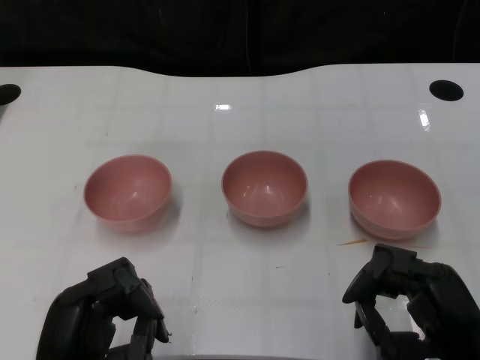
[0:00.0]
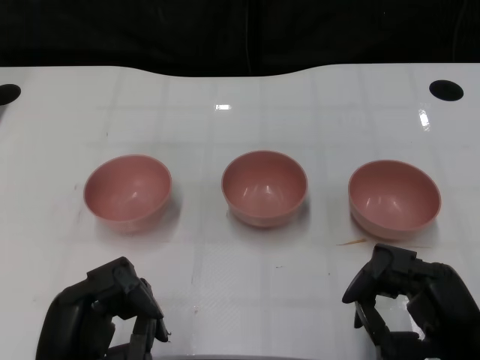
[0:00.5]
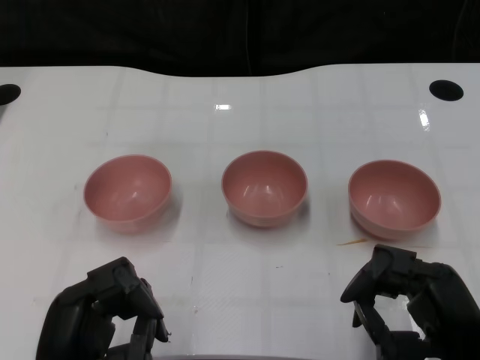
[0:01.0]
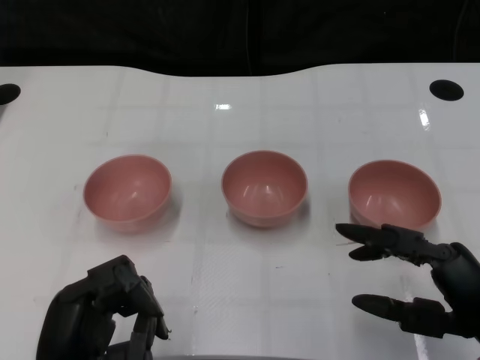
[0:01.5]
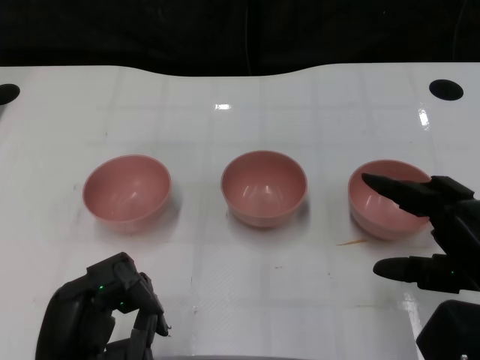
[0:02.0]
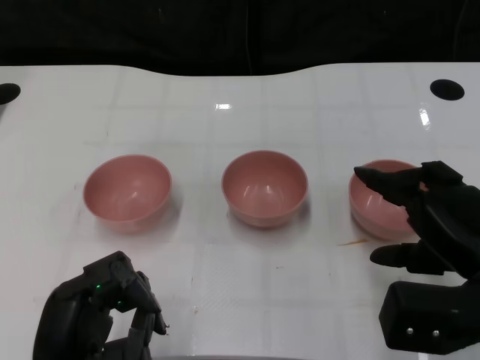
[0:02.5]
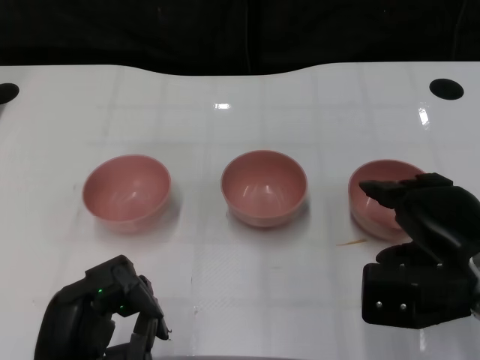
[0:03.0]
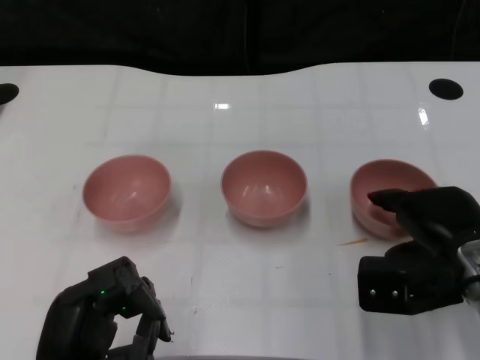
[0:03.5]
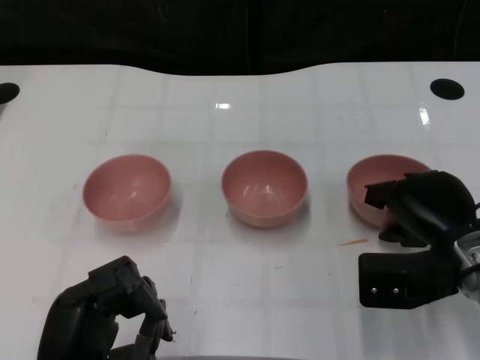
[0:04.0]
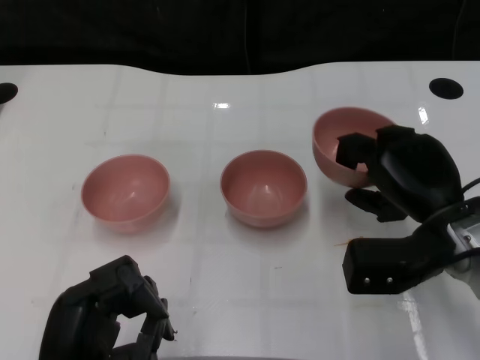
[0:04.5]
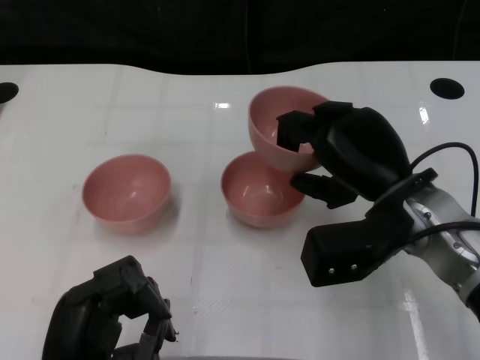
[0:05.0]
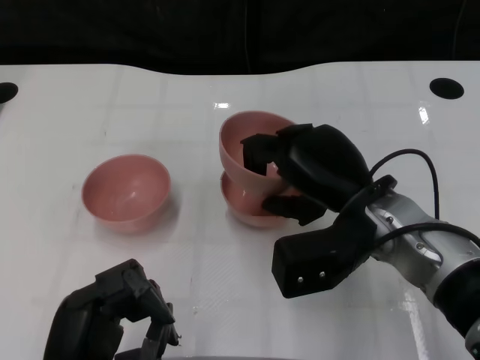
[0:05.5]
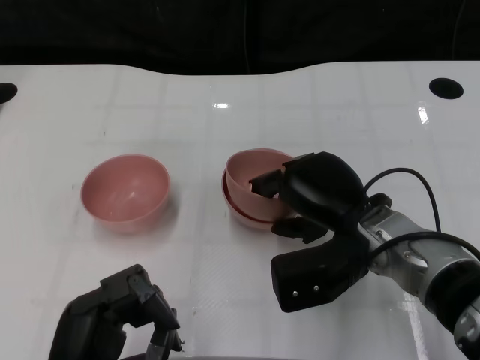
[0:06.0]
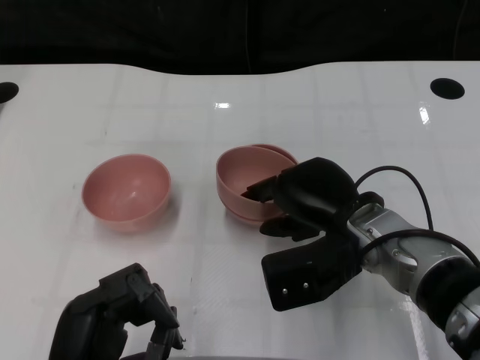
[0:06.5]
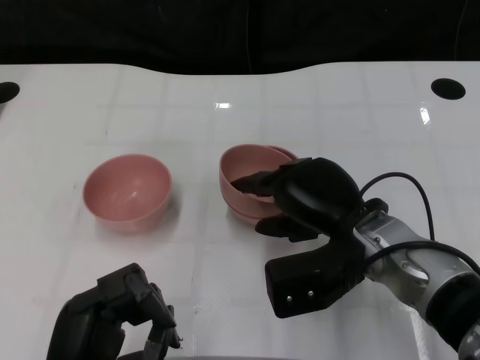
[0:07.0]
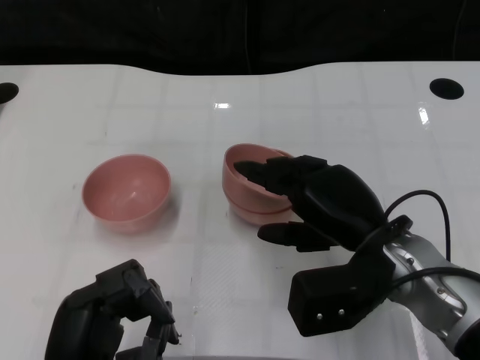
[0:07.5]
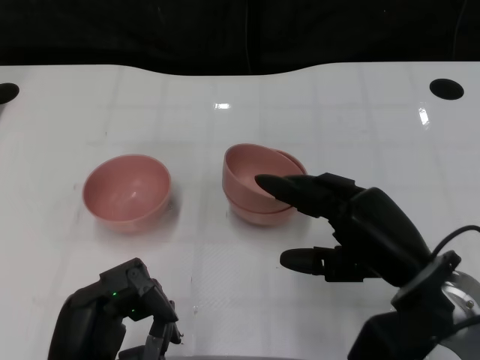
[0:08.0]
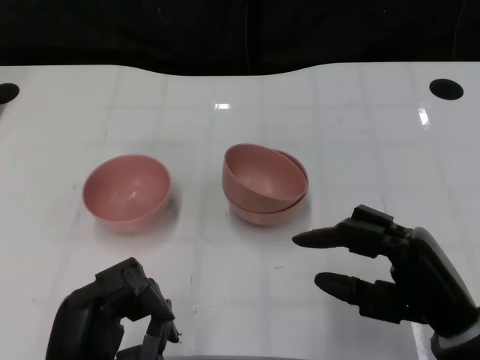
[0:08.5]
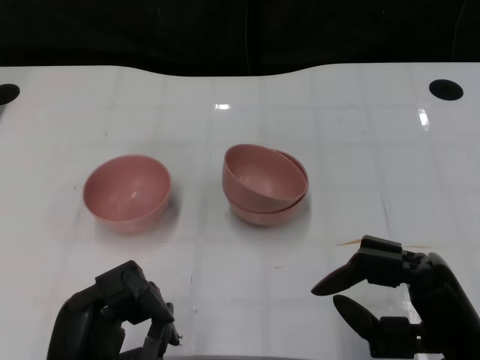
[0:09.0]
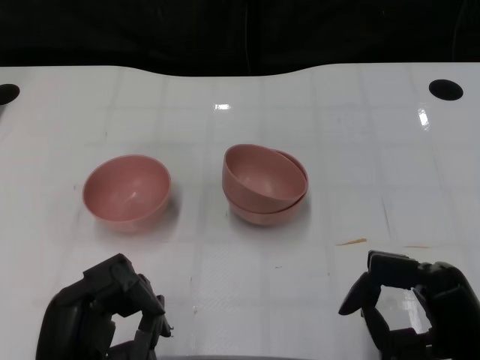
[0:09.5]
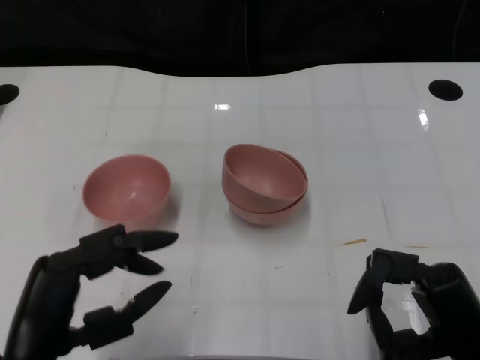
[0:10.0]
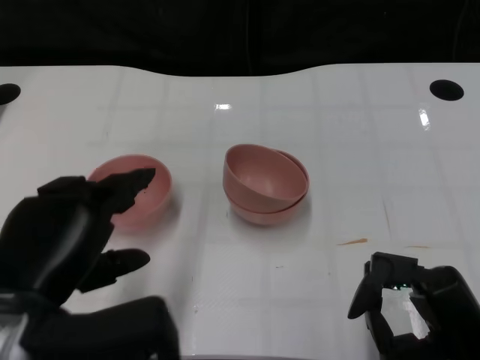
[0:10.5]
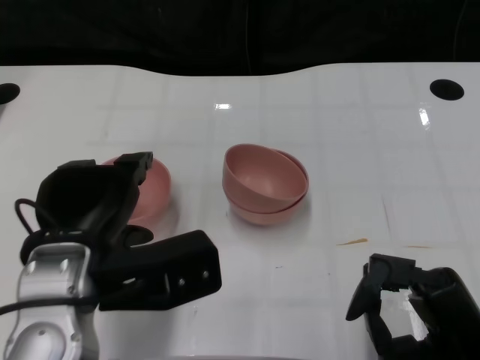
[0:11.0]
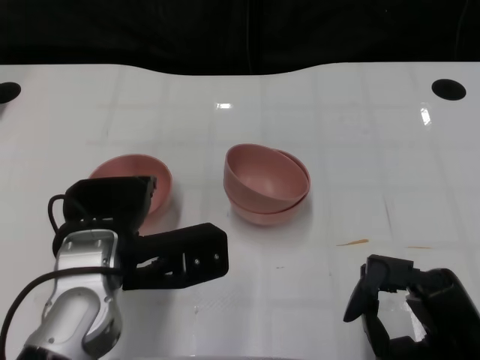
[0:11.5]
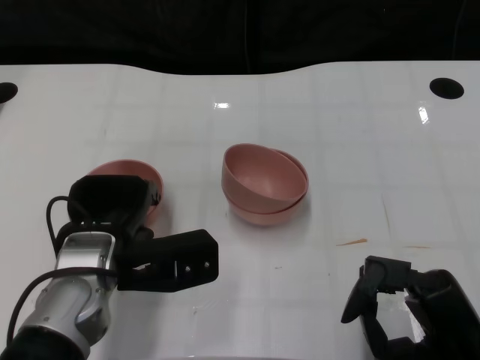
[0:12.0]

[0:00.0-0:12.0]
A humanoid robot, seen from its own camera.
Task of the whole recording: Pick up the bowl on one side of the table and place it on top of the middle bowl, then pick up the bowl on the other side of the table and place it on top of the middle bowls.
Step, 0:01.5 to 0:04.0: Grasp the bowl on the right with the right gripper.
Step, 0:04.5 to 0:07.5: Place the bowl on the right onto the bowl in the middle with right gripper.
0:02.0 to 0:04.0: The right hand is displaced forward and downward by some 10 cm.
0:04.0 to 0:06.0: The right hand is displaced to the left by roughly 10 cm.
0:06.0 to 0:08.0: The right hand is displaced backward and to the right by roughly 10 cm.
0:08.0 to 0:10.0: The right hand heads backward, covering roughly 5 cm.
0:10.0 to 0:12.0: The left hand travels forward by some 15 cm.

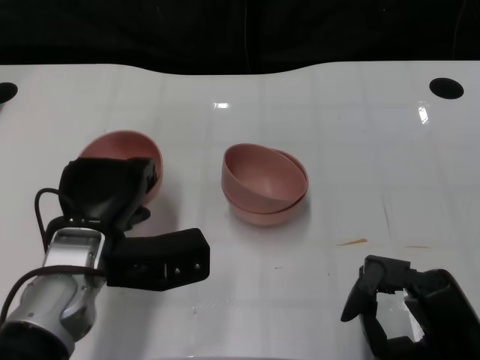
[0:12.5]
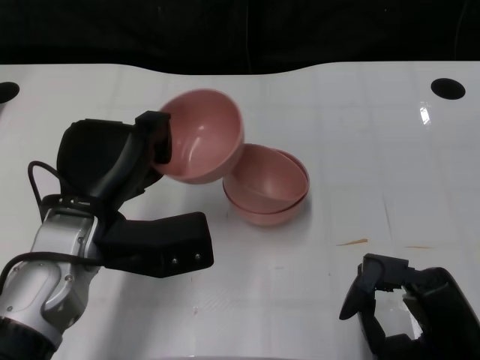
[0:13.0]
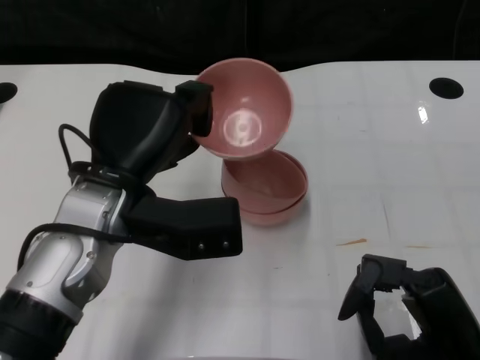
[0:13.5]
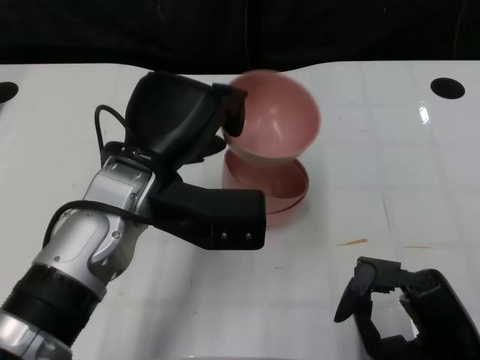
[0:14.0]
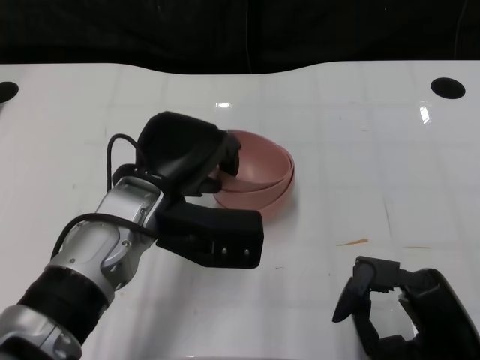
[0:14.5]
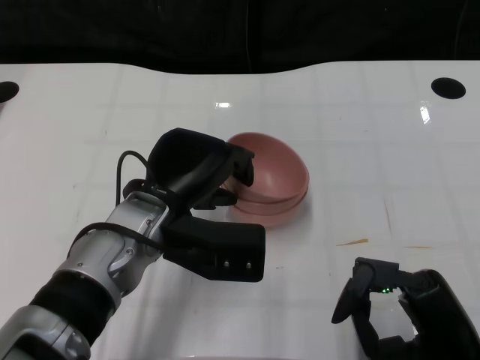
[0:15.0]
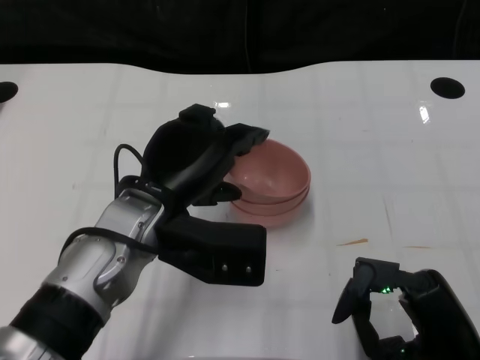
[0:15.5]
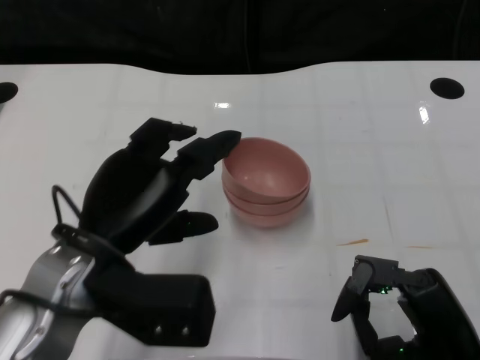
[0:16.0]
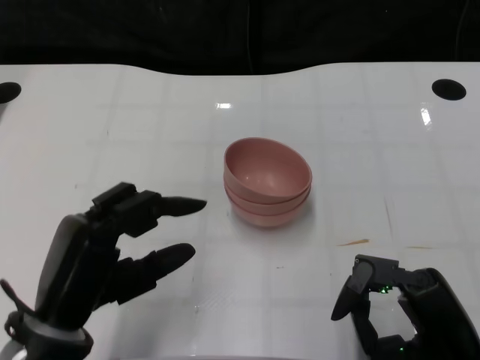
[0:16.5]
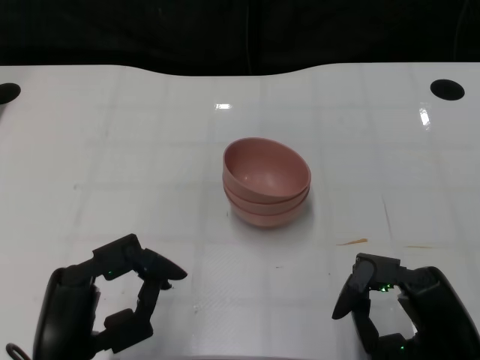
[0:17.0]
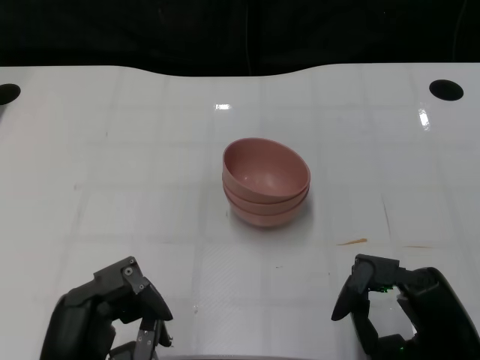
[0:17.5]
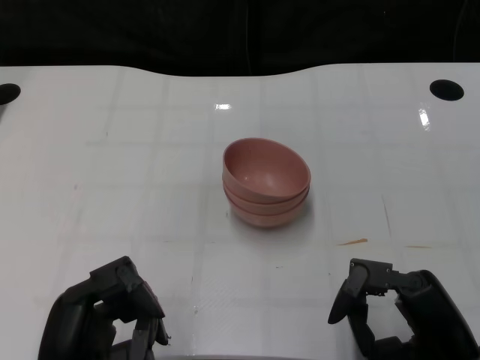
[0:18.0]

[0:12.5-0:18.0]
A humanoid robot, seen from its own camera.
Task of the whole recording: Pick up the bowl on one side of the table and place it on top of the middle bowl, then pick up the bowl on the other side of the table and place it on top of the middle bowls.
Step, 0:12.5 to 0:15.5: Place the bowl on the left onto the bowl in the middle with left gripper.
0:12.5 to 0:14.5: The left hand heads to the right, covering roughly 5 cm.
0:14.5 to 0:16.0: The left hand moves backward and to the left, approximately 10 cm.
0:16.0 to 0:18.0: The left hand moves backward and downward, roughly 15 cm.

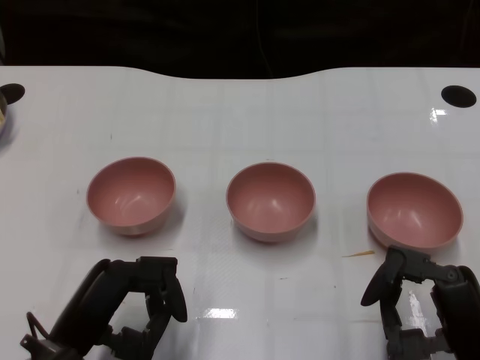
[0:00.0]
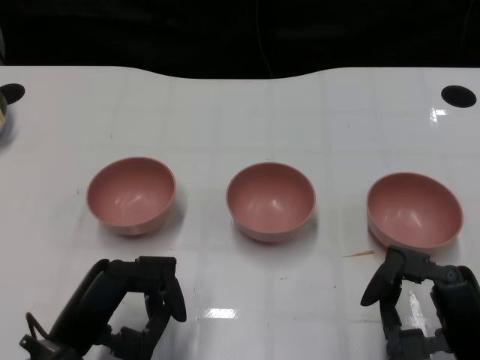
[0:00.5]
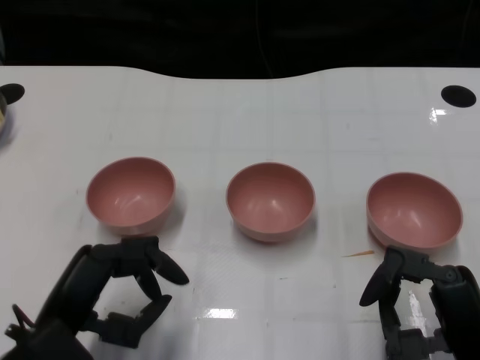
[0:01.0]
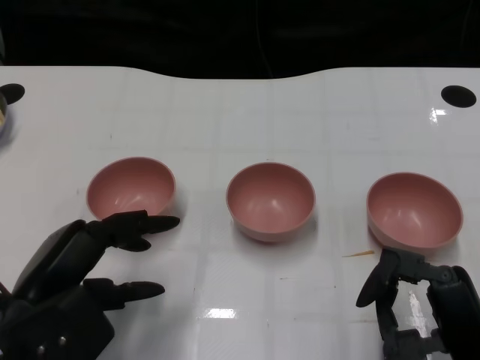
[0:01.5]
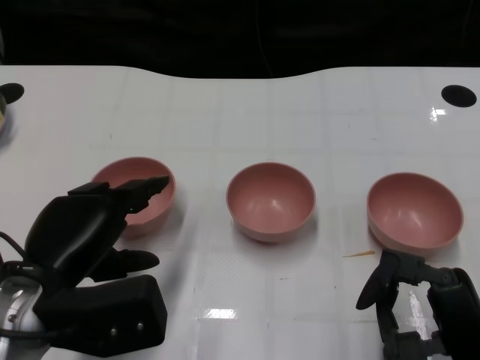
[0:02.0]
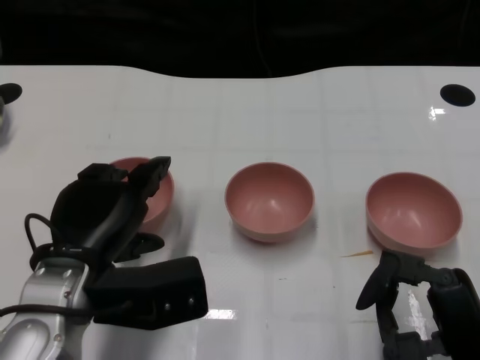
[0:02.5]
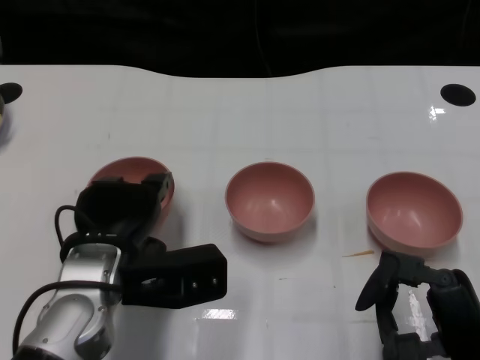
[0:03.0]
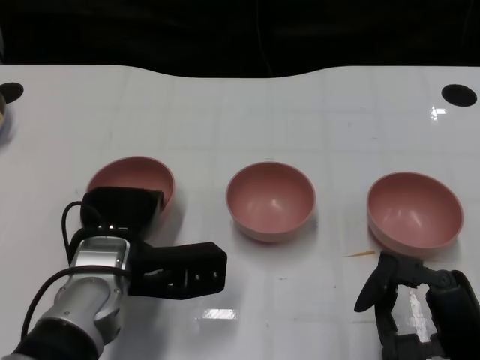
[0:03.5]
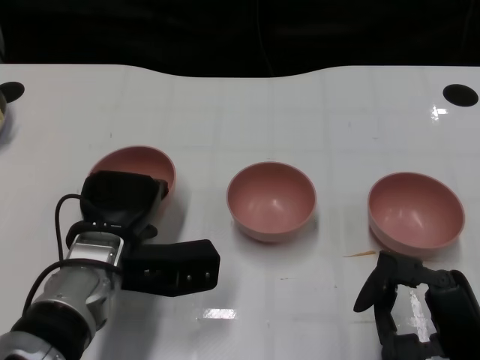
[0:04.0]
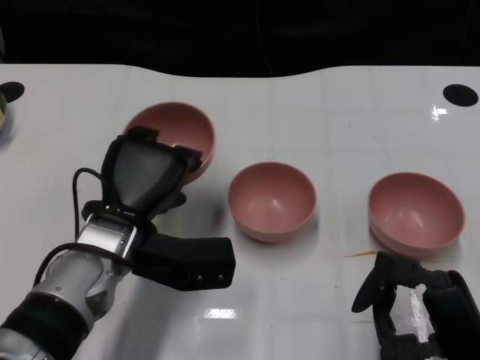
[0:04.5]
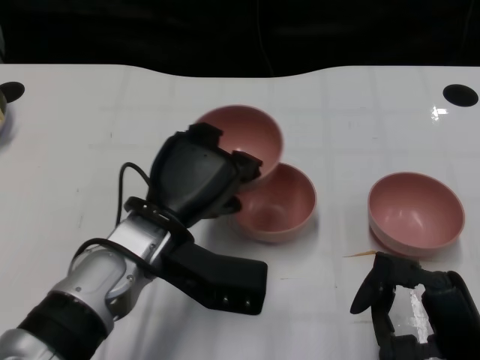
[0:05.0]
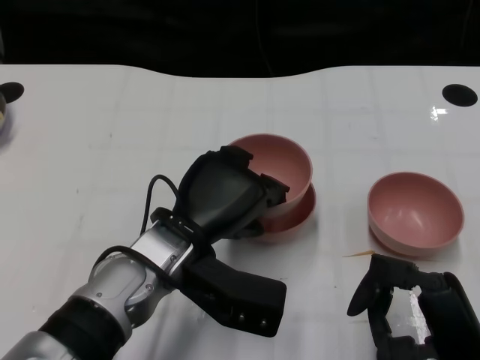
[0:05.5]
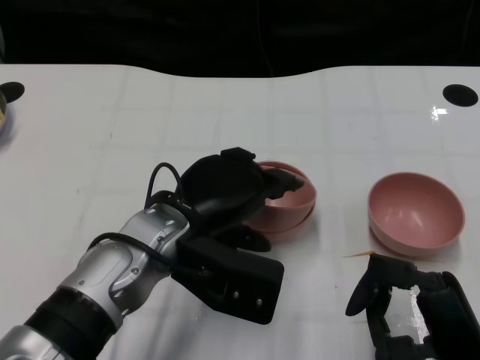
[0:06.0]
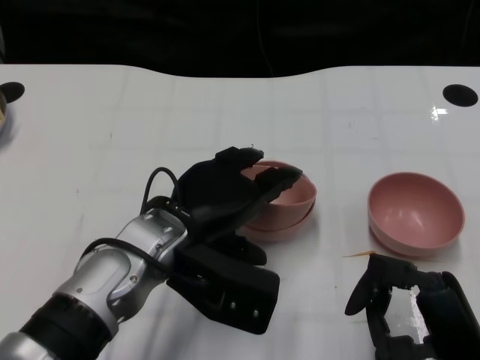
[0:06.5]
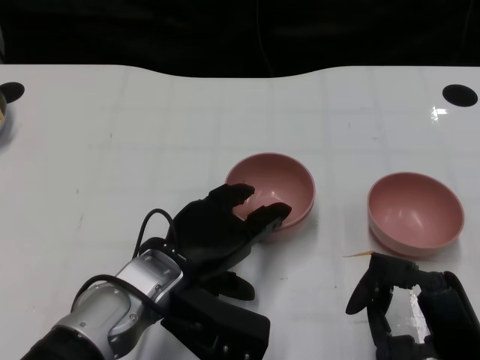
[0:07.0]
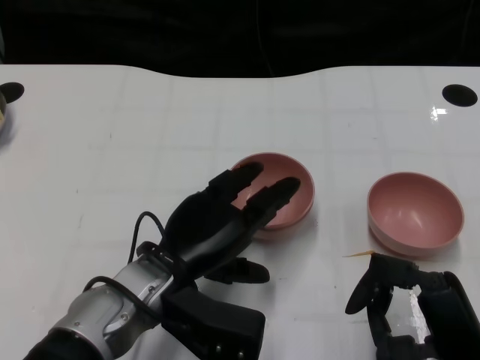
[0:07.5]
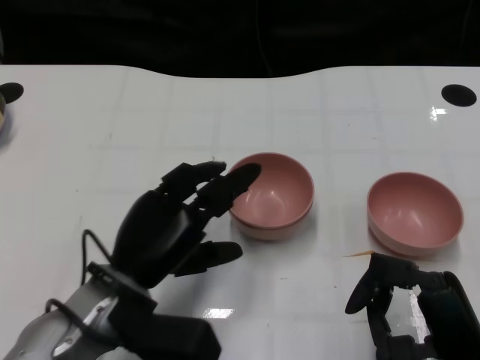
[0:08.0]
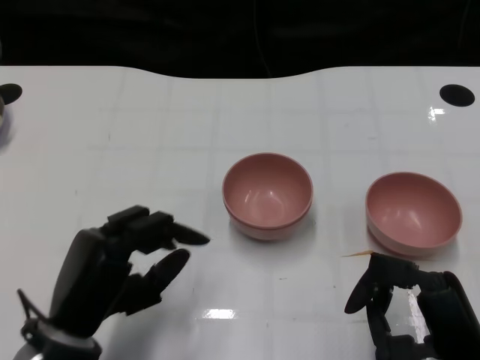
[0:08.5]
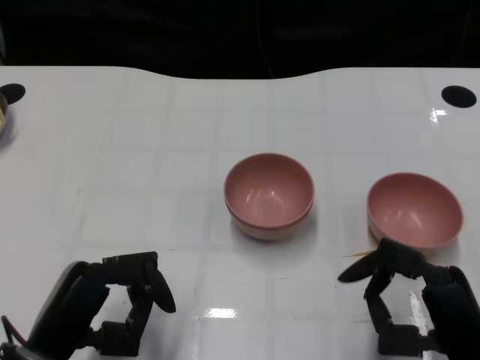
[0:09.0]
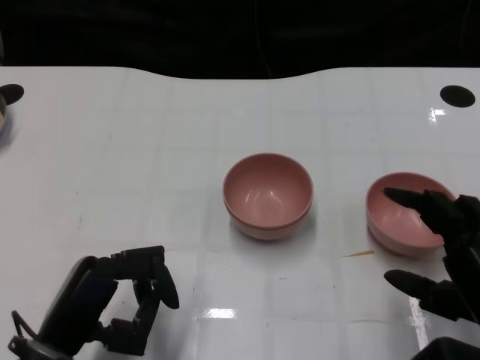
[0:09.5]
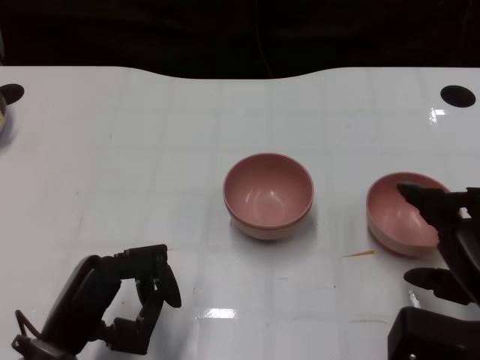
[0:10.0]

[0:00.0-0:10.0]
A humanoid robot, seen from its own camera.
Task of the whole recording: Pick up the bowl on one side of the table and place it on top of the middle bowl, then pick up the bowl on the other side of the table and place it on top of the middle bowls.
Step, 0:01.0 to 0:03.5: Grasp the bowl on the left with the left gripper.
Step, 0:04.0 to 0:08.0: Place the bowl on the left onto the bowl in the middle with left gripper.
0:02.0 to 0:04.0: The left hand is displaced forward and to the right by roughly 10 cm.
0:04.0 to 0:06.0: The left hand shifts about 10 cm to the right and upward.
0:06.0 to 0:08.0: The left hand changes place by roughly 10 cm.
0:08.0 to 0:10.0: The left hand moves to the left and backward, roughly 10 cm; the right hand shifts by roughly 5 cm.
